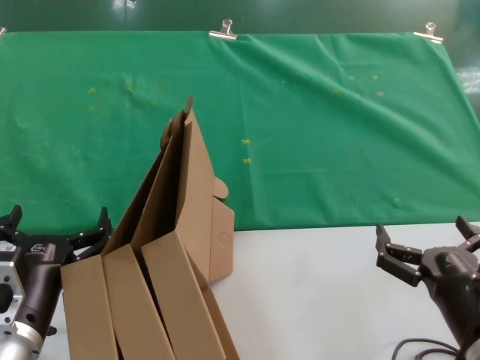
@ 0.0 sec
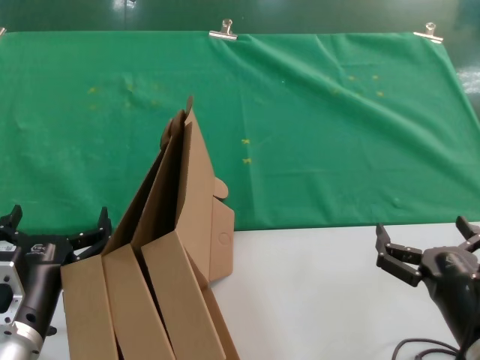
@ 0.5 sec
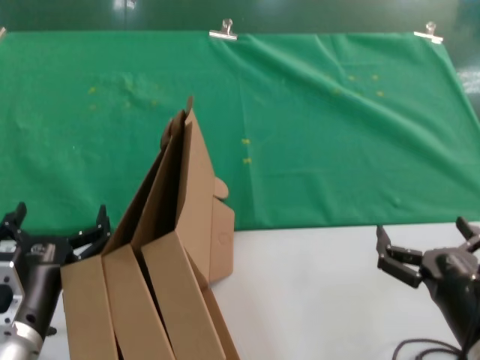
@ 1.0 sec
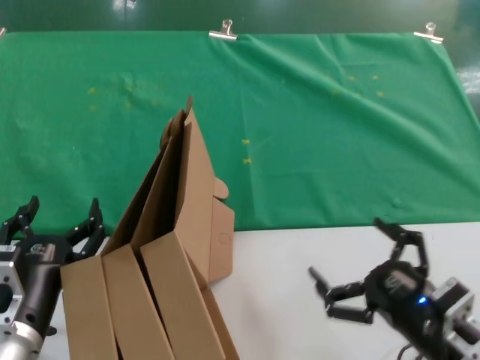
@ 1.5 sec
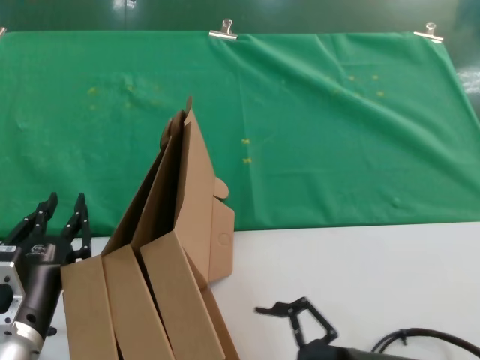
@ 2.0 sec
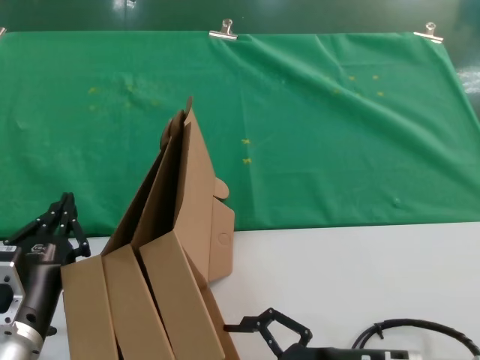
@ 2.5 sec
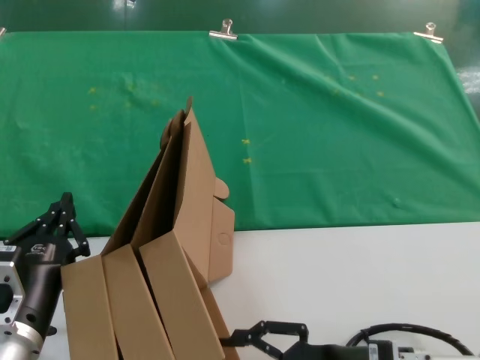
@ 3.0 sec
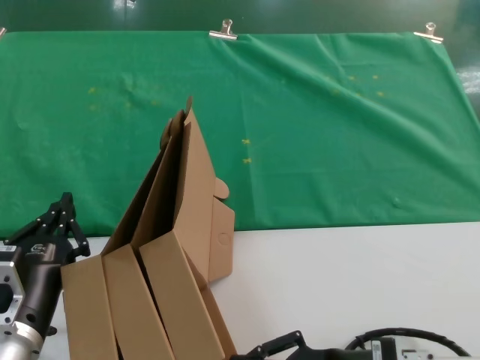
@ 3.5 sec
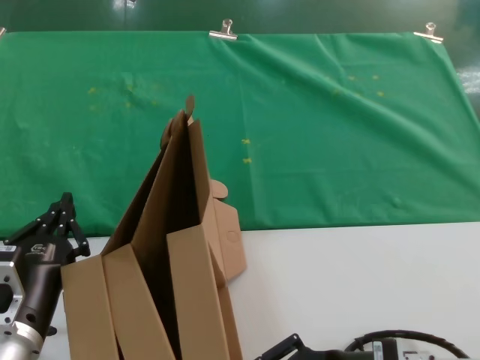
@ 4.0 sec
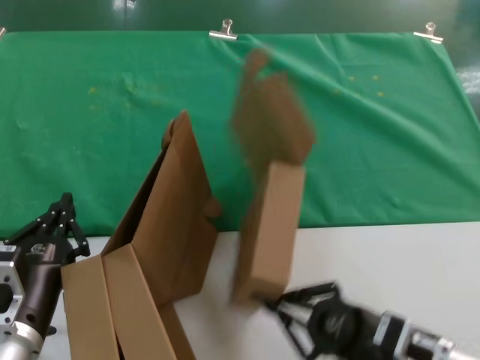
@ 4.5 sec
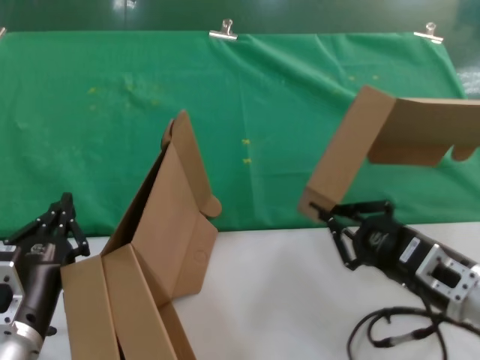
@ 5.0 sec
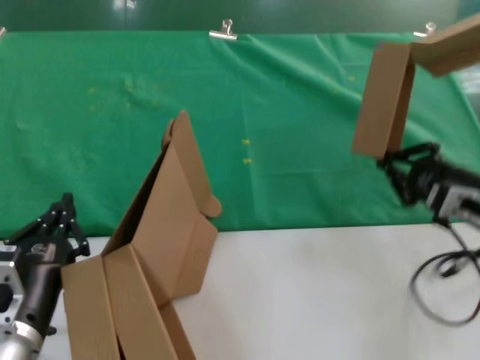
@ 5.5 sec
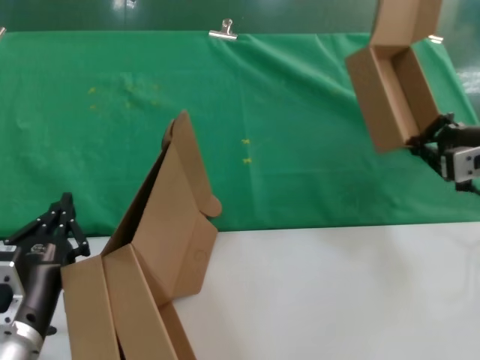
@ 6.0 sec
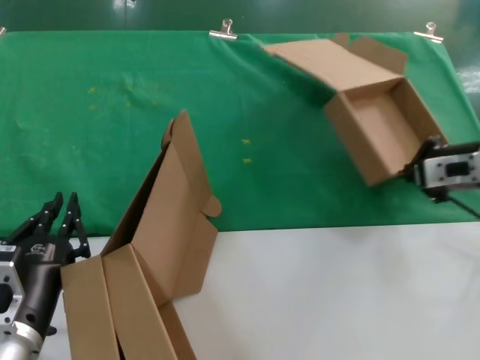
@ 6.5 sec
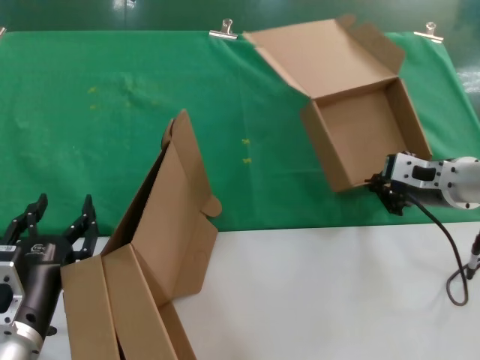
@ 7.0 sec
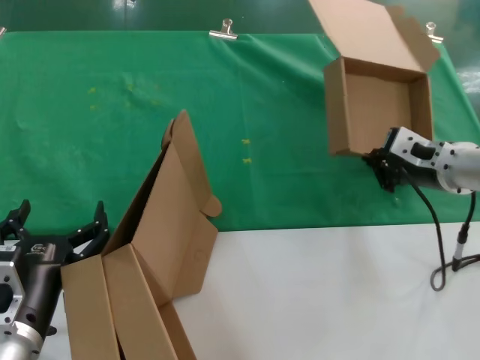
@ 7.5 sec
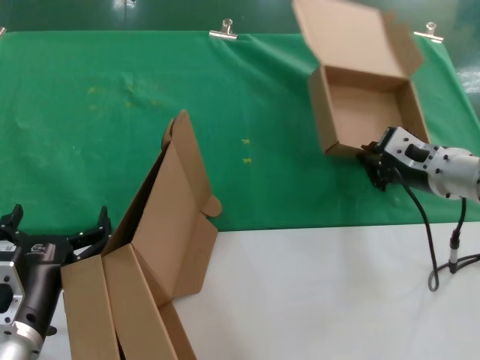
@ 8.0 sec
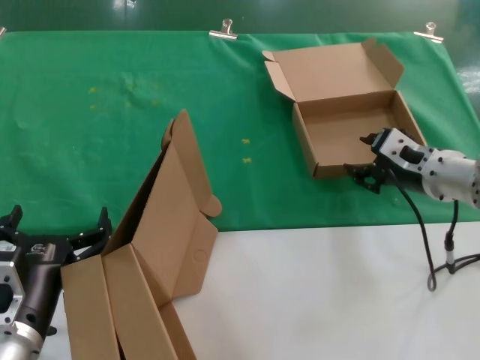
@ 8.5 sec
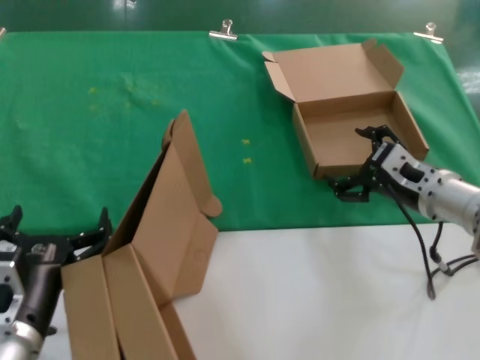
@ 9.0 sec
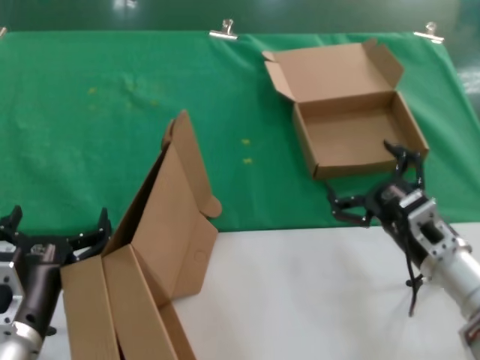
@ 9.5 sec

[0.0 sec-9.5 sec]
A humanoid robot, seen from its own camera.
Task of the whole recording: pick up the paper box and put it at the back.
Step, 0.0 sec to 4.0 sec: Grasp the paper box.
Step, 4.5 sec to 8.0 sec: Place the paper box on the table.
2.0 sec to 4.0 sec: The hands make only small movements.
4.0 sec to 5.5 sec: The right hand goes some 20 cm forward, to the right and upward.
5.5 sec to 7.5 sec: The right hand shifts some 10 cm forward and upward.
7.5 sec to 9.5 sec: The right hand is displaced downward and backward by roughly 15 cm.

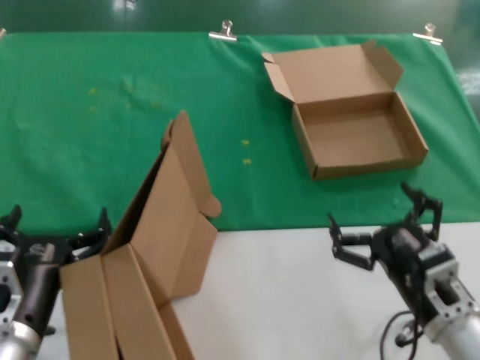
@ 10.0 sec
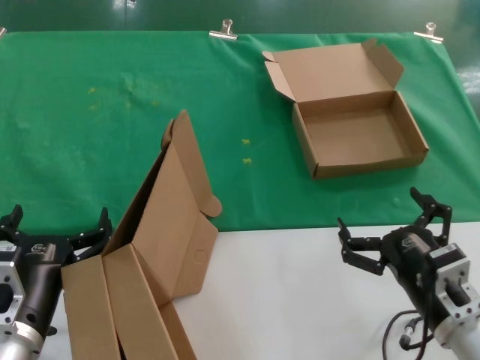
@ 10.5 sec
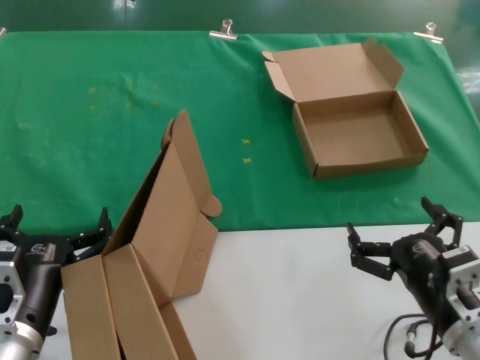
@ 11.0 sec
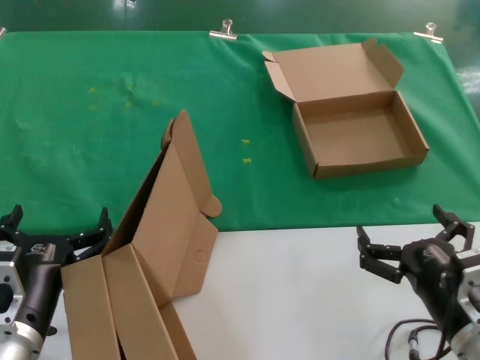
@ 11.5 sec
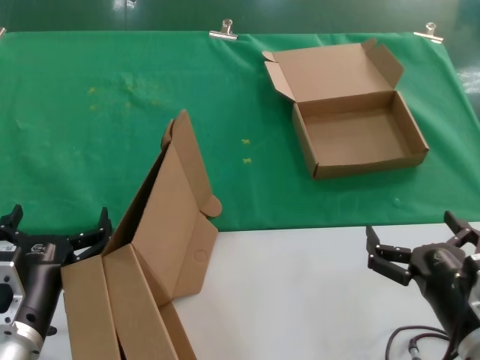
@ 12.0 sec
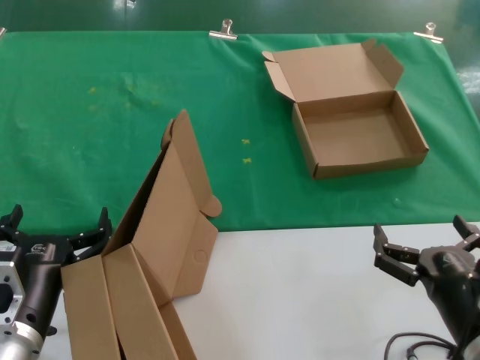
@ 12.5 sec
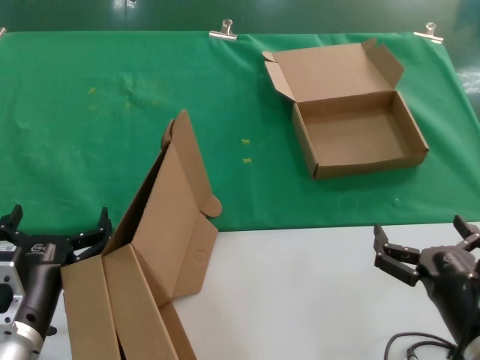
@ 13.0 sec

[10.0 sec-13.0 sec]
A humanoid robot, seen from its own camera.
Task of the whole recording: pick up the paper box and put it at the back.
10.0 sec to 11.5 sec: There are only small adjustments of the hands.
11.5 sec to 13.0 sec: The hands make only small movements.
